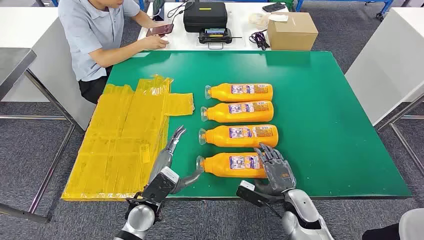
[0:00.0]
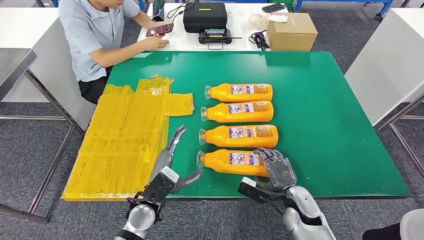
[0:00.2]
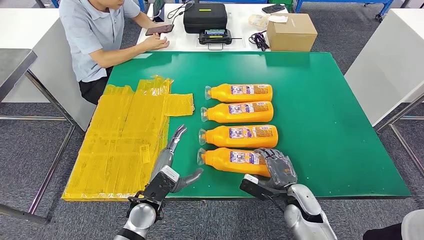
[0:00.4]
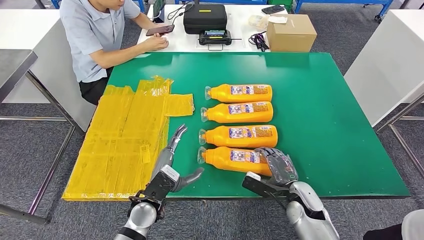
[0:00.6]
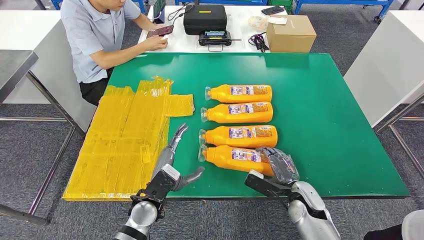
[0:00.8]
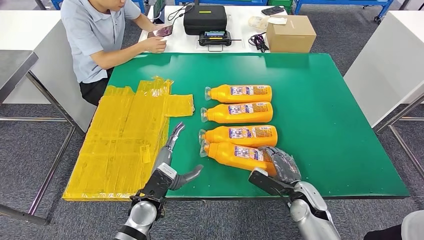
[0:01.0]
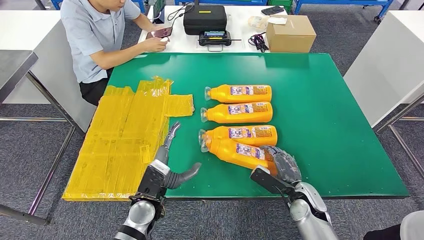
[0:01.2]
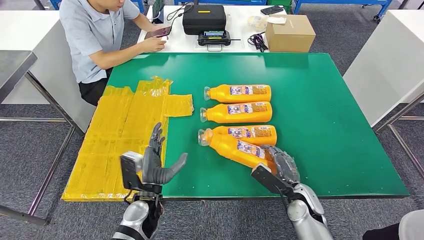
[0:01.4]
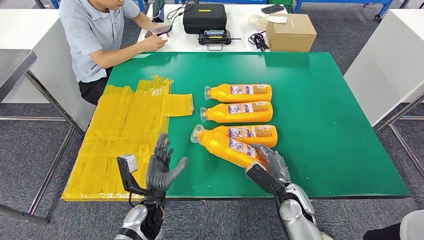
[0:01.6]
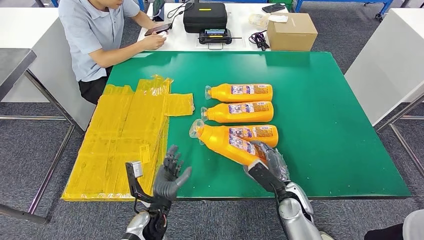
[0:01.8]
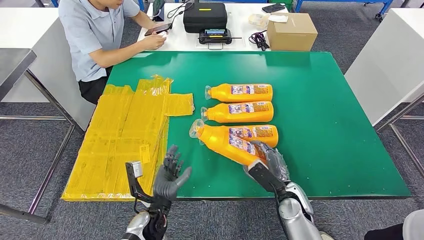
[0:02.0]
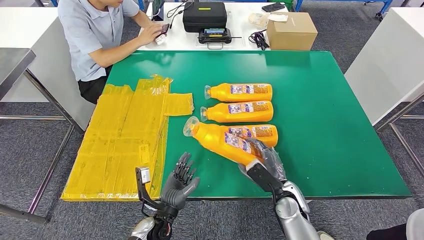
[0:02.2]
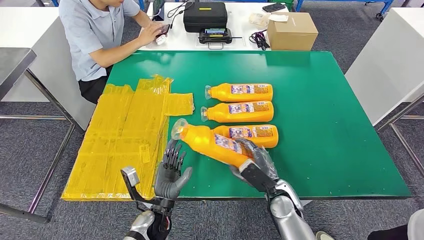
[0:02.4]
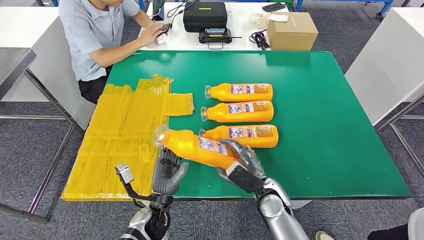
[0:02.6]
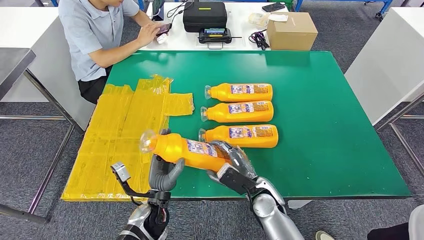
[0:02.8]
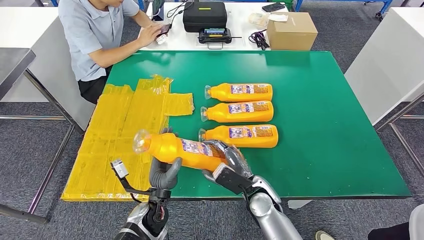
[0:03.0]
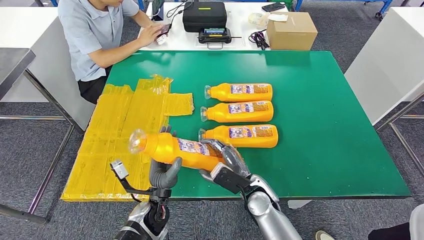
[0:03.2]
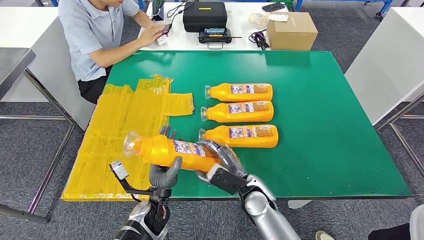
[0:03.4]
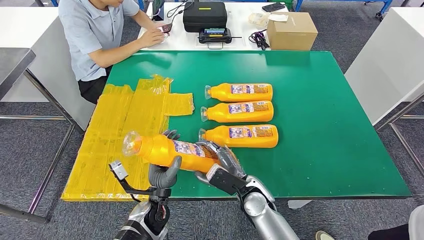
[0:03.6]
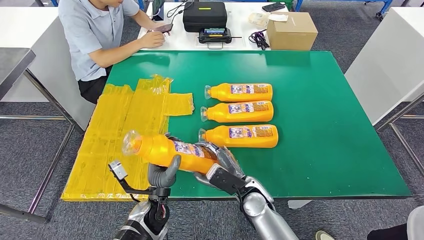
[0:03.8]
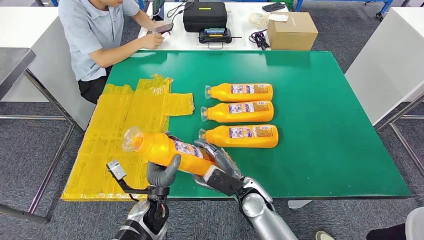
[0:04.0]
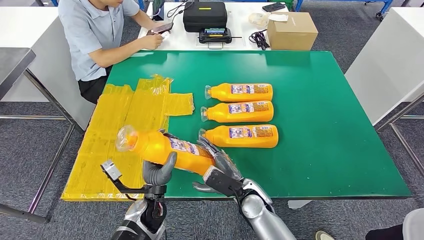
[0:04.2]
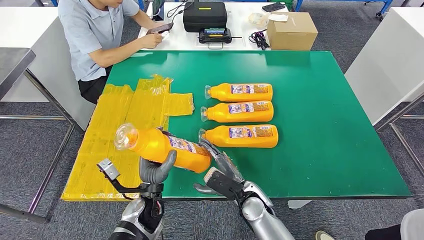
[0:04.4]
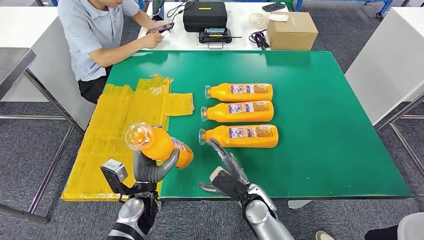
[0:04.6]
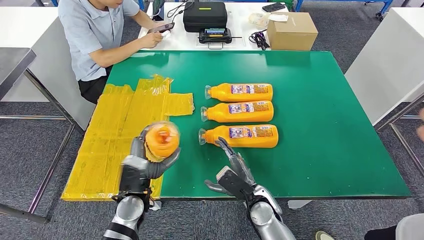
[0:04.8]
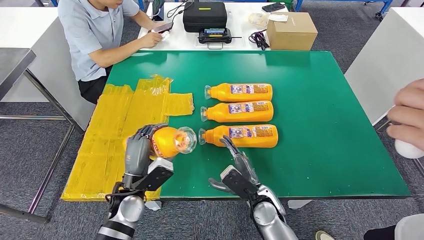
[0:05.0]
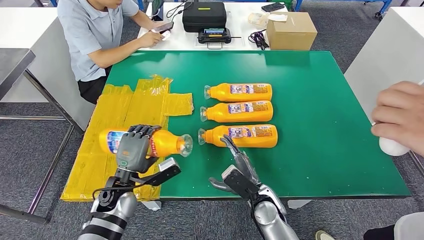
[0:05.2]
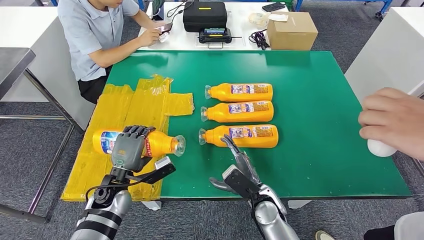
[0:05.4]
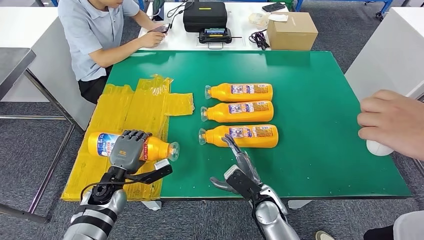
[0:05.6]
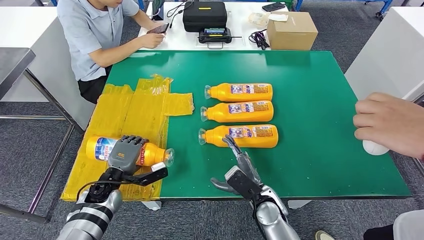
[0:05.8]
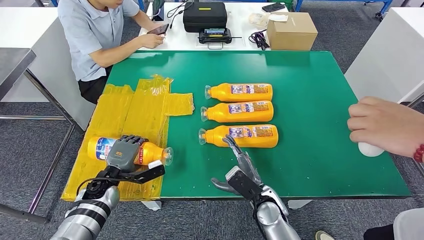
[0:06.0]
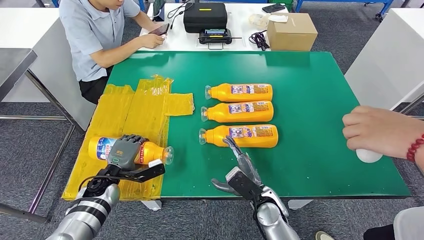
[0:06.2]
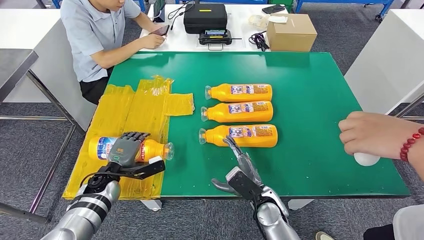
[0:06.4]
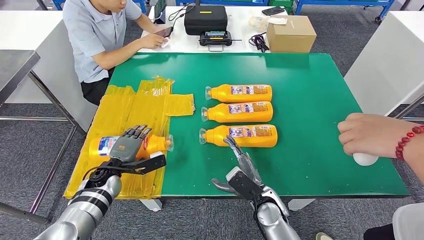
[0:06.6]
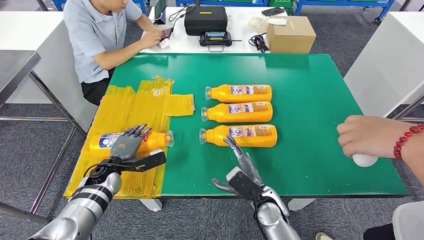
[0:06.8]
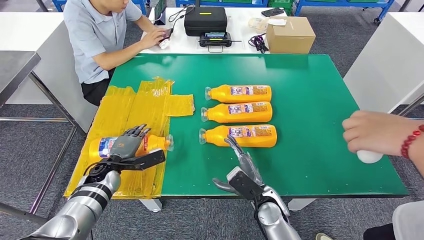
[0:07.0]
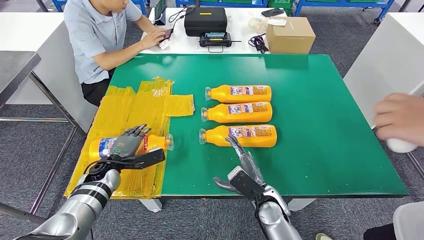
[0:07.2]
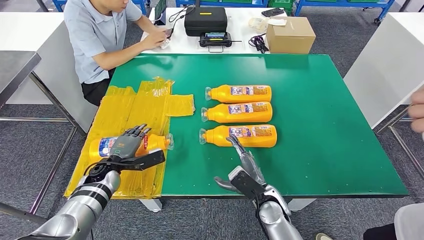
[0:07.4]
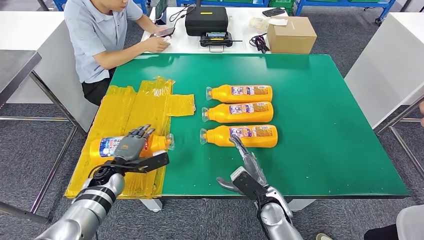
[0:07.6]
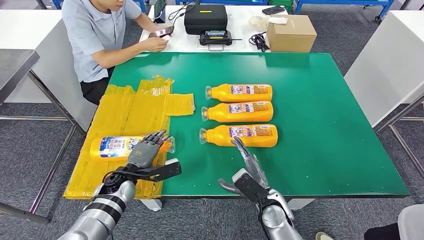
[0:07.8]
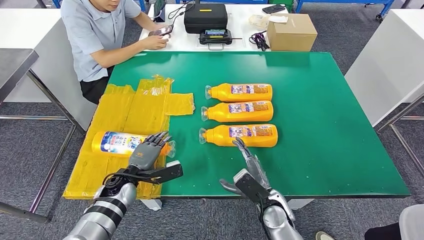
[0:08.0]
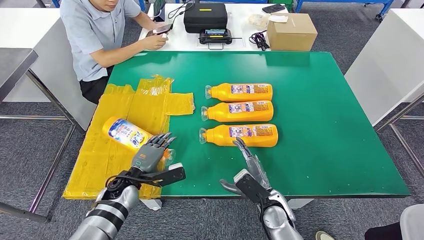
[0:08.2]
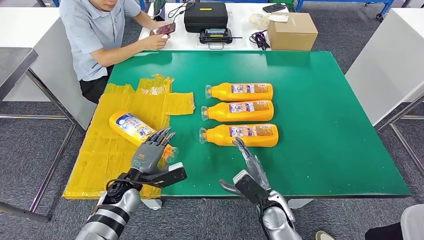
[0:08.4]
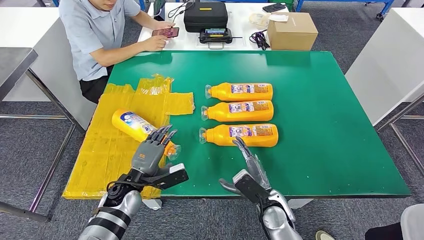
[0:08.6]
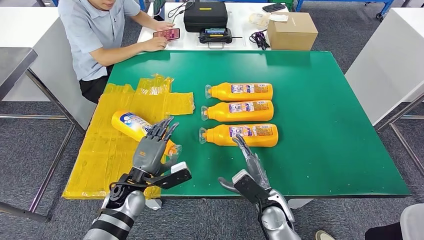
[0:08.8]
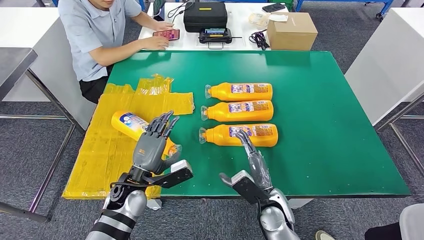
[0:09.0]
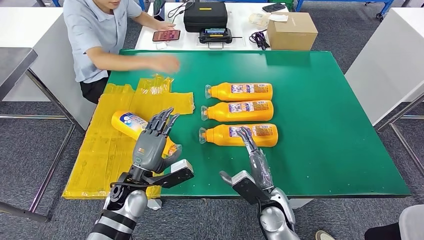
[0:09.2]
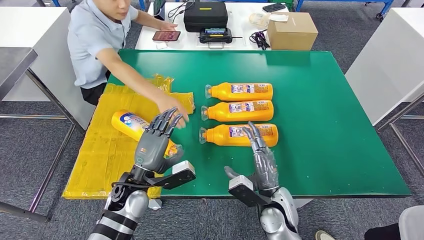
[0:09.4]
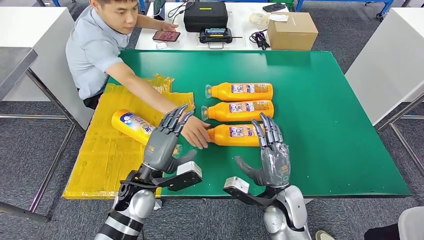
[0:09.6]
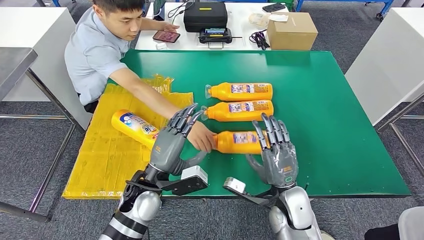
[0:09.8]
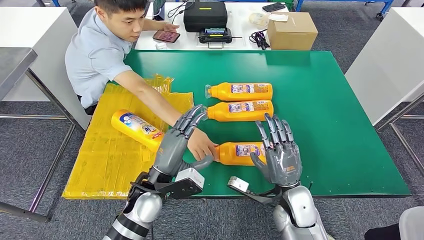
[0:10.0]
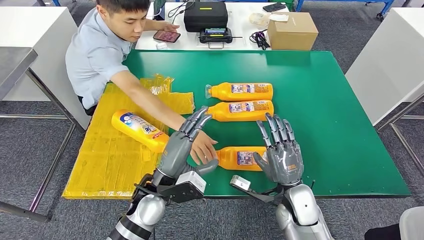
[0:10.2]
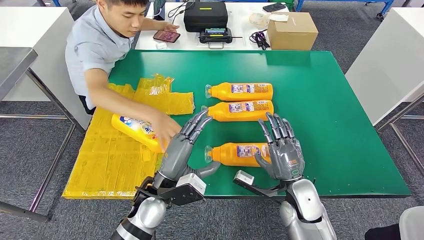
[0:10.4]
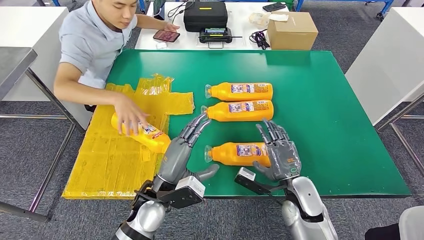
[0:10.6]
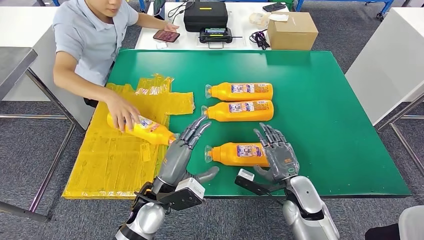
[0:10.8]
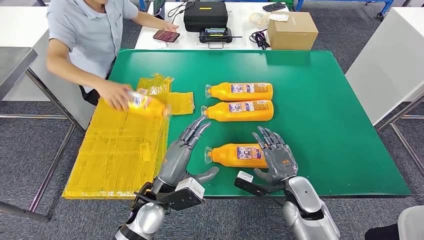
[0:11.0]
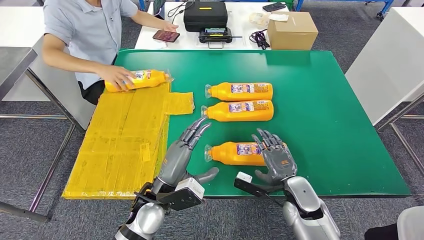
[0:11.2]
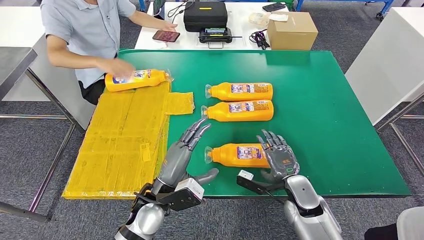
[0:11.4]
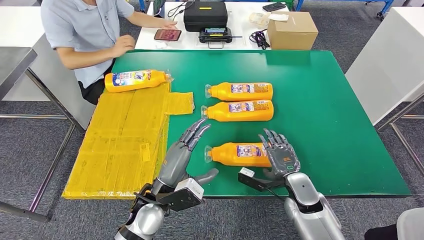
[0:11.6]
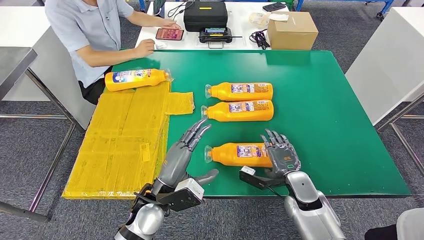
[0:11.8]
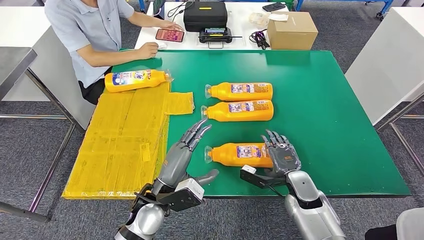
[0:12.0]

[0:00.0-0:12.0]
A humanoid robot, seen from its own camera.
Step, 0:00.0 to 0:04.4: Take the fast-moving consumer goods bottle from the table.
Step, 0:04.6 to 0:06.6: Flip the fast-moving consumer goods bottle to the front side.
0:01.6 to 0:03.0: The right hand heads to the left, covering approximately 10 cm.
0:03.0 to 0:04.4: The hands stay close to where they were, moving slightly.
0:04.4 to 0:06.0: The left hand heads to the left and forward, covering approximately 15 cm.
0:10.4 to 0:12.0: The right hand ends up some 5 cm from where it was.

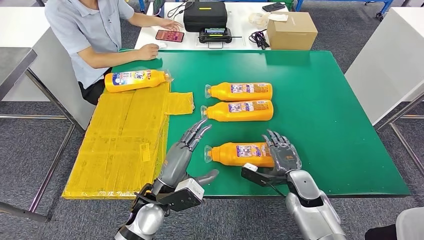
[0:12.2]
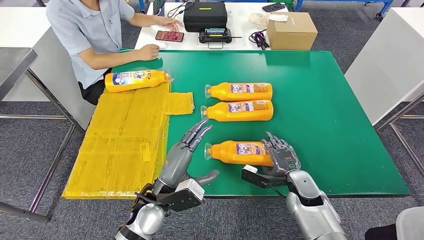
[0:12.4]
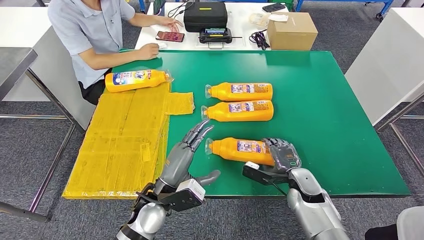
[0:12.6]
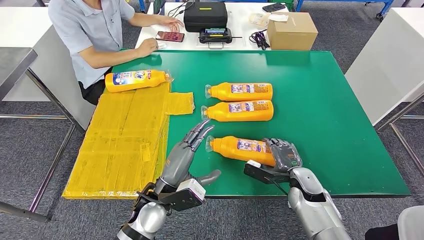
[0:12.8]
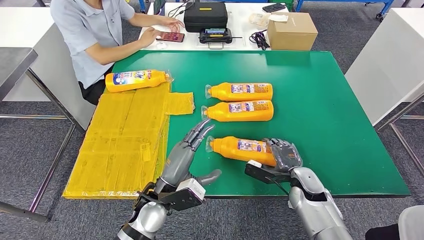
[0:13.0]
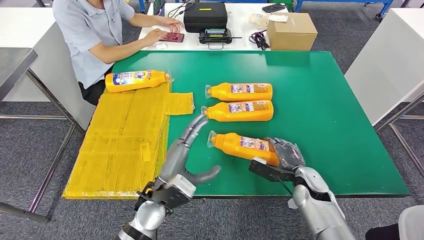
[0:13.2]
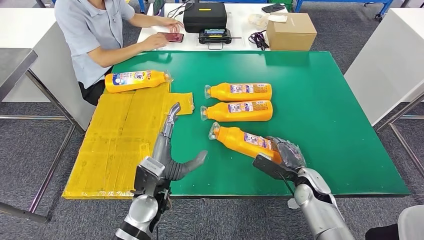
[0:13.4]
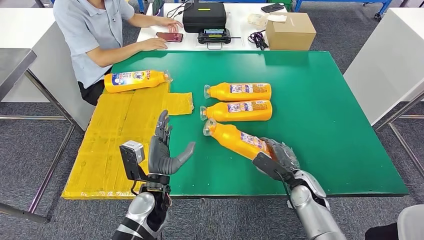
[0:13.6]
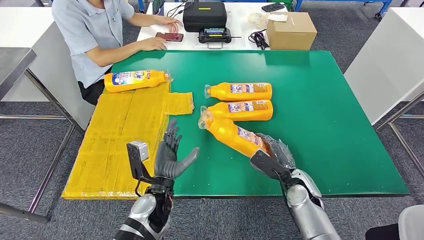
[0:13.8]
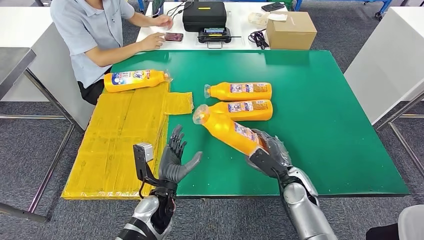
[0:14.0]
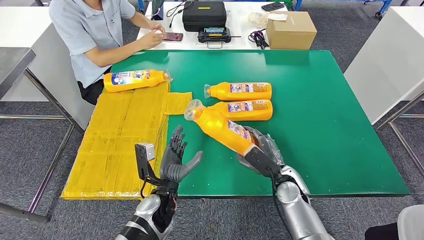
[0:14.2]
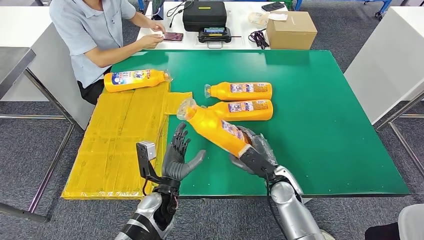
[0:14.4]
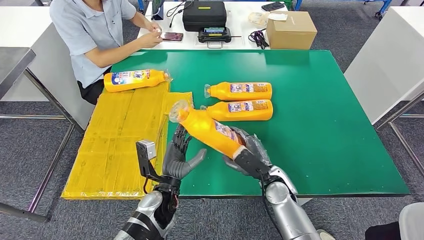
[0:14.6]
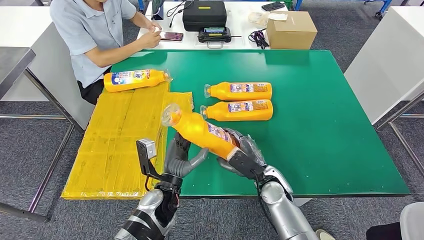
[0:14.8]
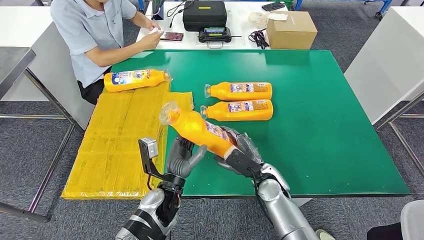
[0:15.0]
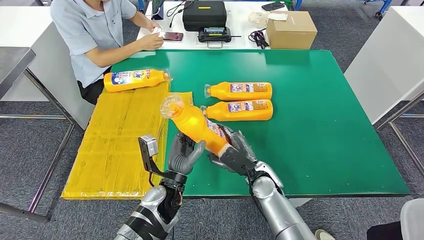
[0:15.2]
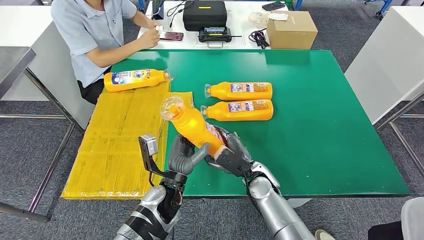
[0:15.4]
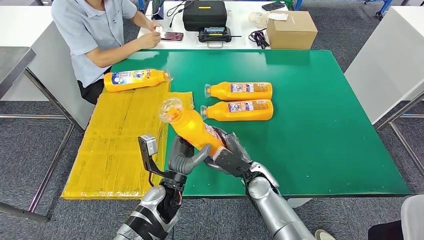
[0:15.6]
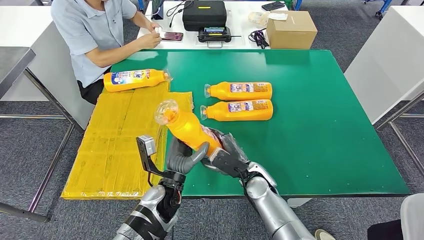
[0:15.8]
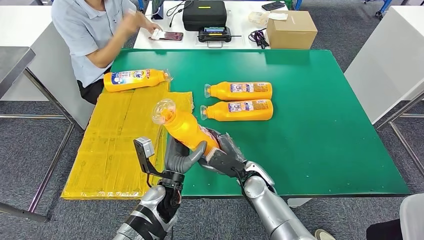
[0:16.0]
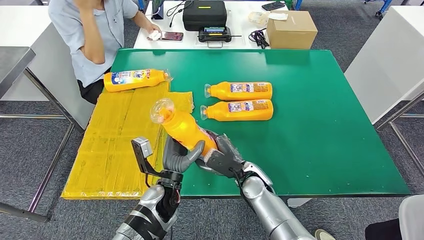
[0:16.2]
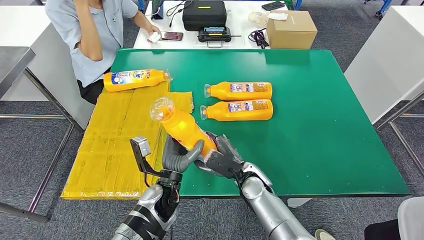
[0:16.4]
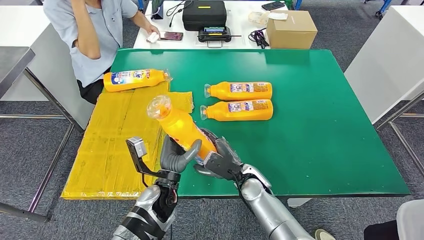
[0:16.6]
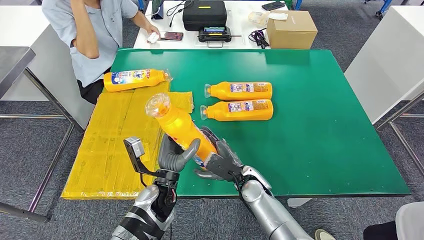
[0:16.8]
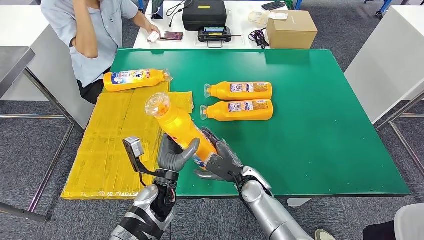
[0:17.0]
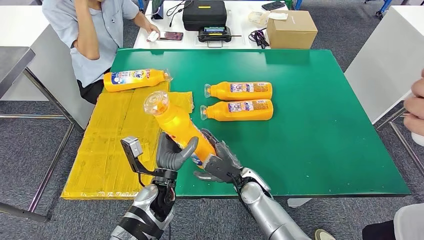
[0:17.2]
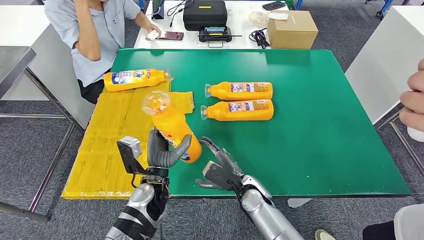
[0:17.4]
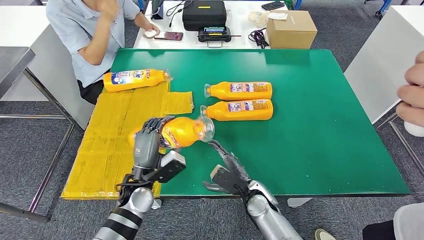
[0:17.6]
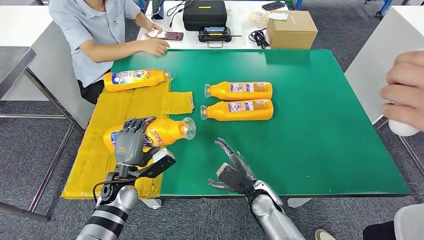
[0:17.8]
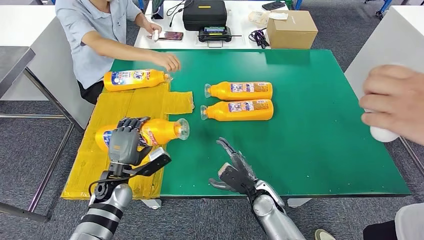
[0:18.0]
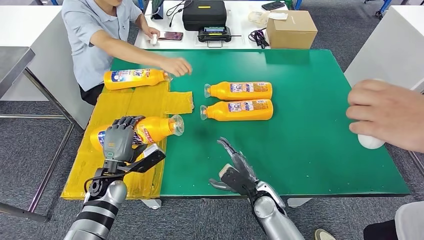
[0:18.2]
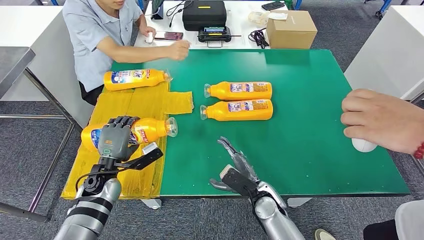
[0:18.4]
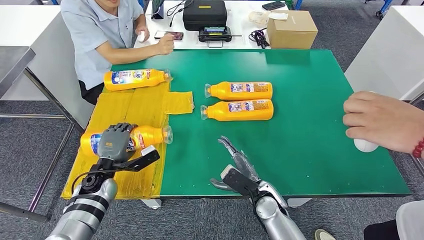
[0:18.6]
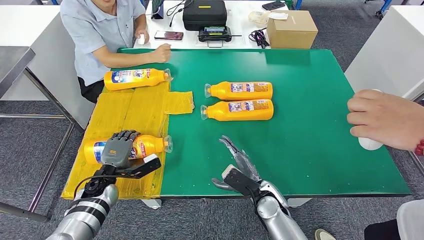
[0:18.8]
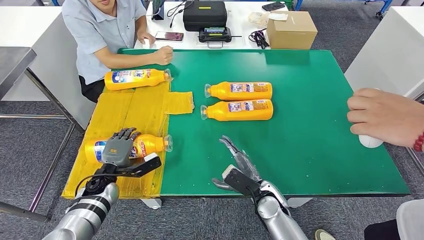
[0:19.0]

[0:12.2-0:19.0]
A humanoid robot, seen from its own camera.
0:13.6 to 0:15.0: The right hand goes roughly 10 cm to the left.
0:15.0 to 0:16.2: The hands move only a little.
0:16.2 to 0:17.6: The right hand ends up some 5 cm from where it was, while the left hand shifts some 10 cm to the left.
